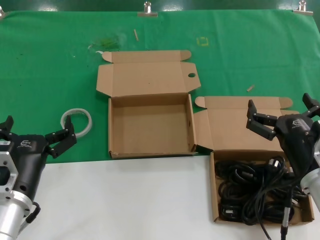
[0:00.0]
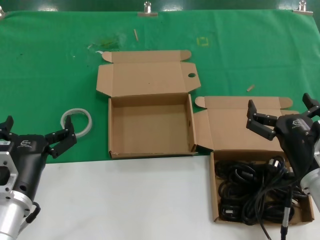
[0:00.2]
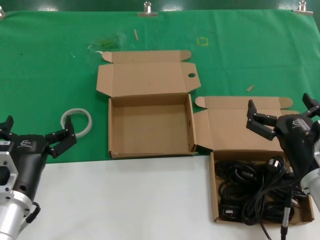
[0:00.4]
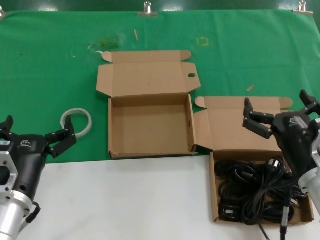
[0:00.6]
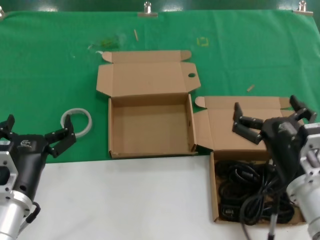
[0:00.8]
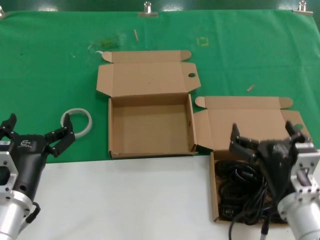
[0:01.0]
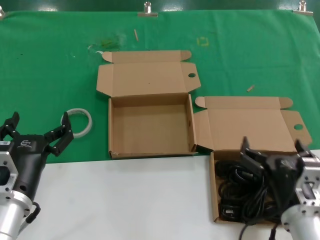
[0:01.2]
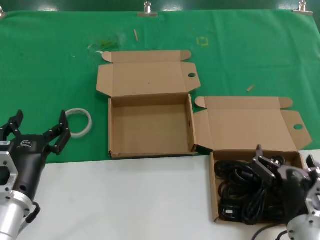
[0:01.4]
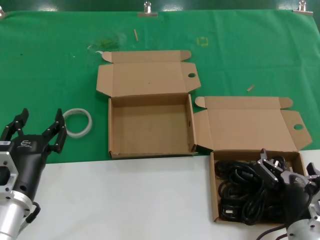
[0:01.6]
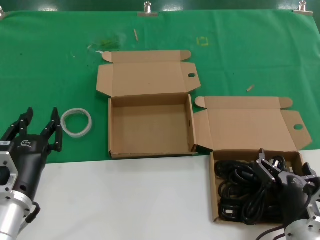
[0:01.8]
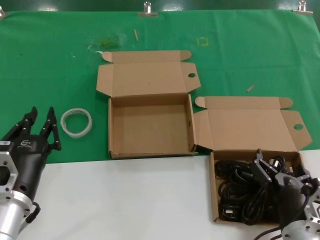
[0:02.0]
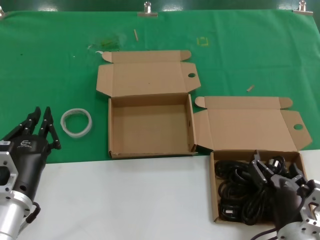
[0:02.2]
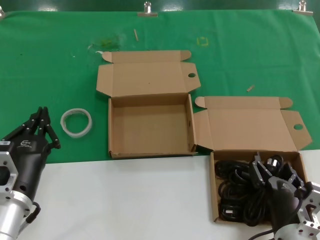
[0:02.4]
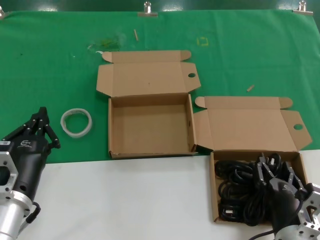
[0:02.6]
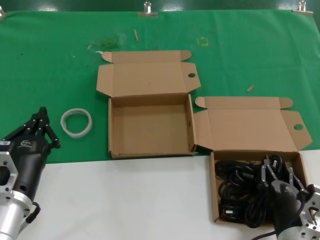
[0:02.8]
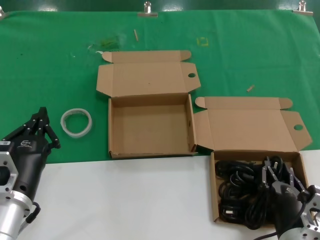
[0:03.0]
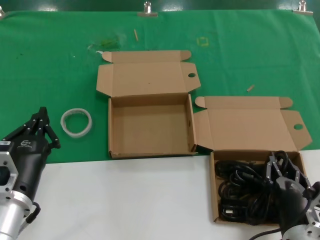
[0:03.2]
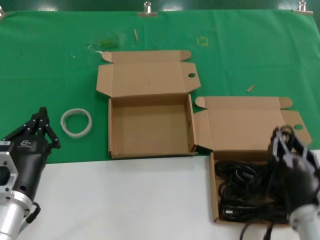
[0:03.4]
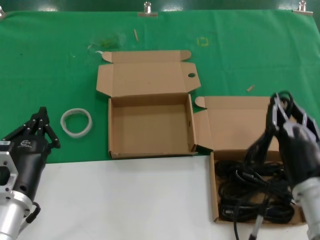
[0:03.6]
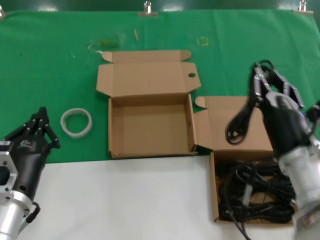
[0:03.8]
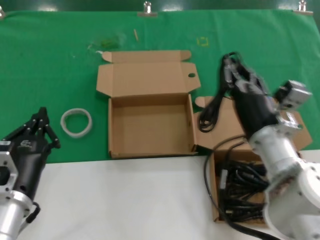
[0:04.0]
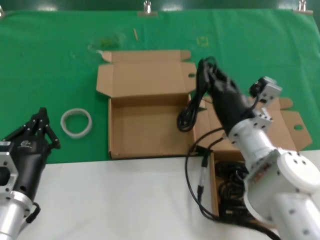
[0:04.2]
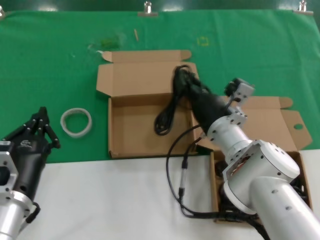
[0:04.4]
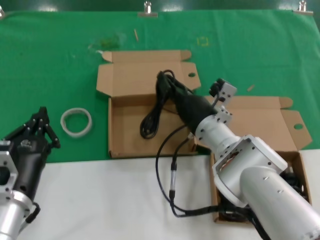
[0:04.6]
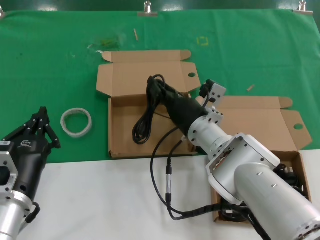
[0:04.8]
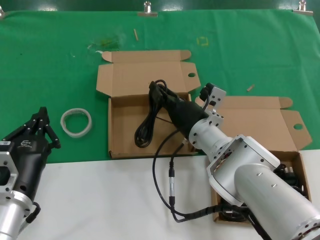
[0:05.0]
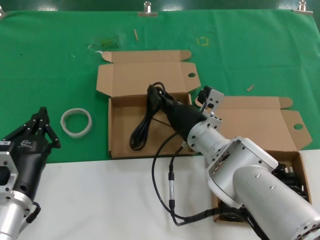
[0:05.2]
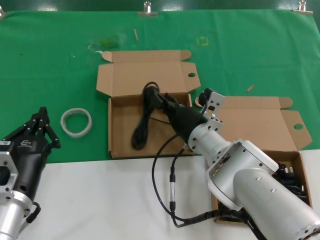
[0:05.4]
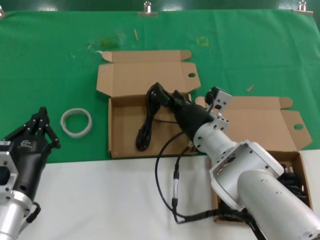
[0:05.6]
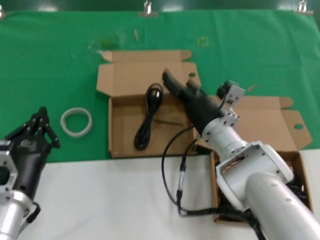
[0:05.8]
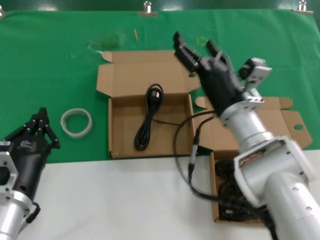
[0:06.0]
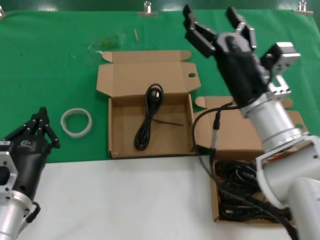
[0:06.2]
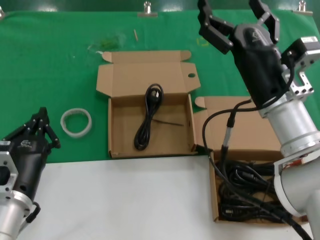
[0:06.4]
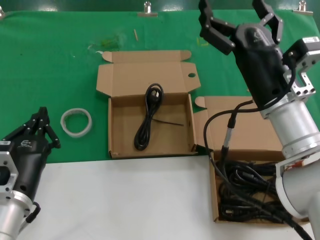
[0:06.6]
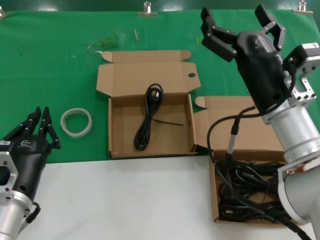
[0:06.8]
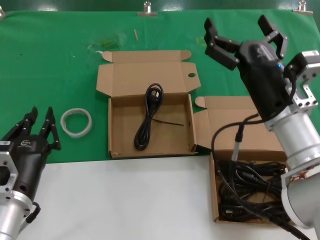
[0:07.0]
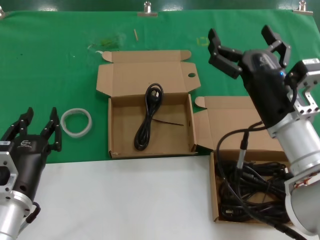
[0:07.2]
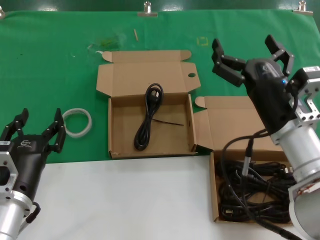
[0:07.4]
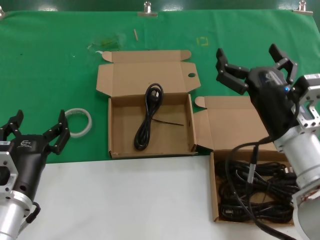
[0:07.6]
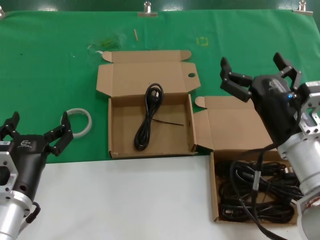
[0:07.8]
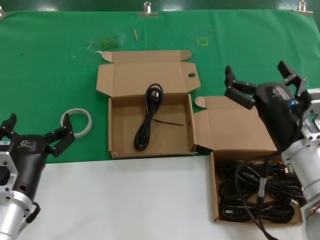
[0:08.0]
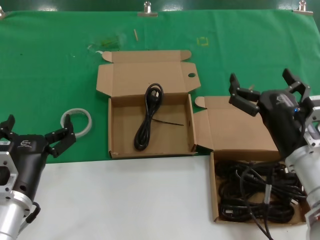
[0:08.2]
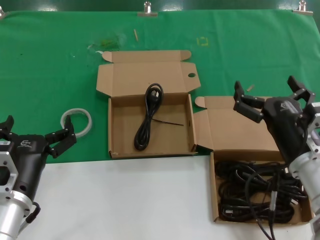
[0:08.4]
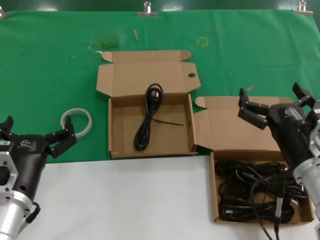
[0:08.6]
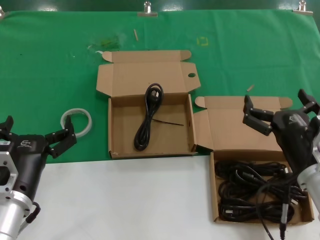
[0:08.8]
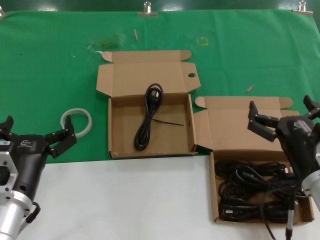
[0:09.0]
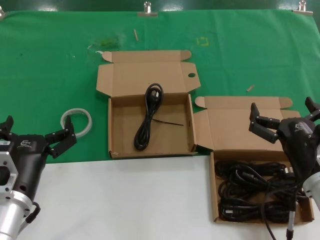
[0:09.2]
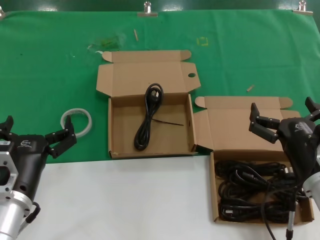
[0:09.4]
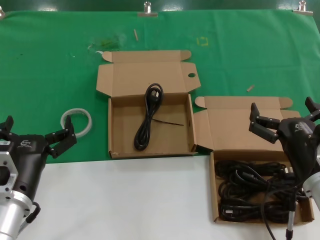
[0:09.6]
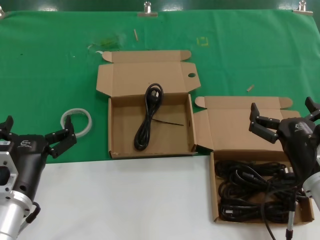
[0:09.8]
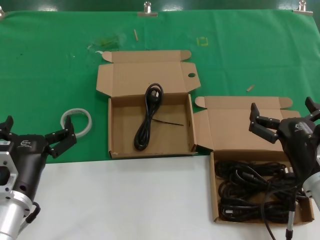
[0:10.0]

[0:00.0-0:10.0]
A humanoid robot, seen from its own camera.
Task of the whole recording: Pick up the power cord from the box containing it and place it in another box.
Step, 0:00.0 to 0:03.0: Grasp the data cable.
Step, 0:03.2 to 0:05.6: Place the data cable in the another box.
0:00.0 to 0:01.4: The right hand shifts approximately 5 cm downward.
0:01.4 to 0:02.8: The hands move only a little.
0:02.8 to 0:04.2: The right hand travels forward and upward by roughly 20 cm.
0:04.2 to 0:05.8: The right hand shifts by roughly 5 cm.
0:05.8 to 0:07.2: The right hand shifts some 15 cm backward, upward and to the right.
0:07.2 to 0:08.6: The right hand goes some 5 cm downward.
0:08.6 to 0:10.0: The hands stay close to where they were, moving slightly.
